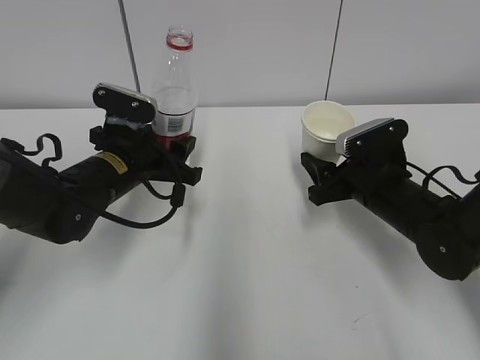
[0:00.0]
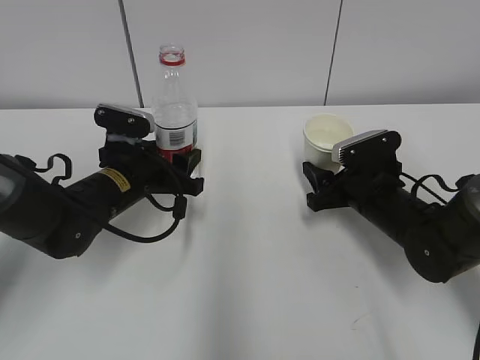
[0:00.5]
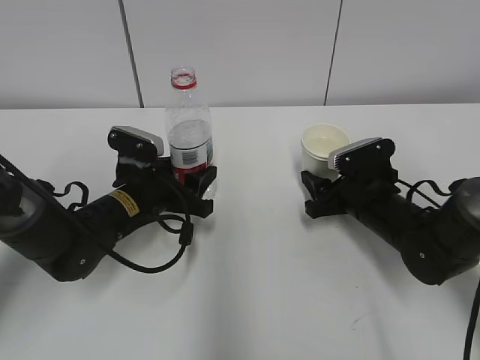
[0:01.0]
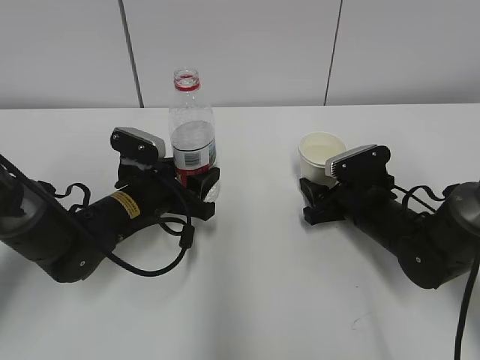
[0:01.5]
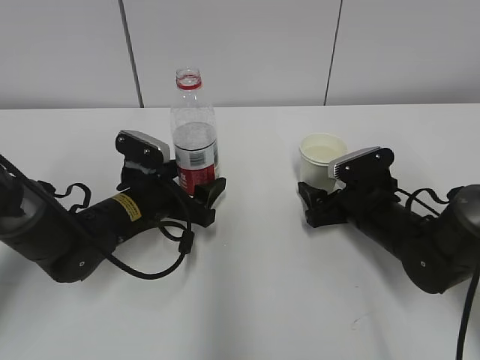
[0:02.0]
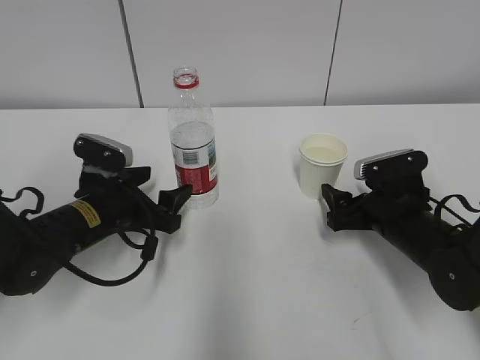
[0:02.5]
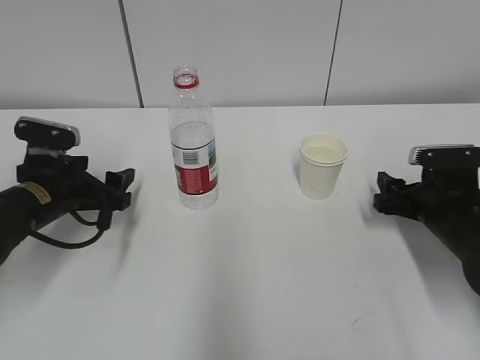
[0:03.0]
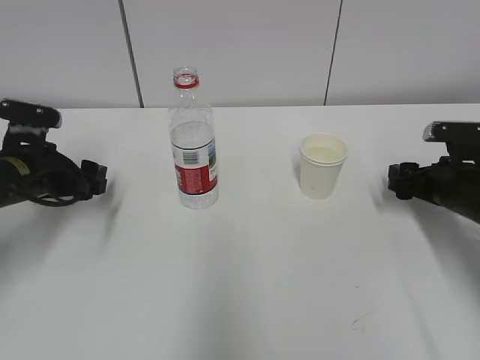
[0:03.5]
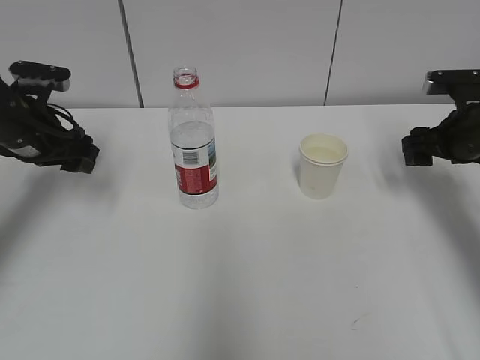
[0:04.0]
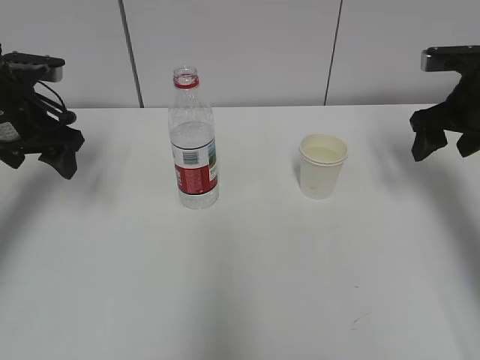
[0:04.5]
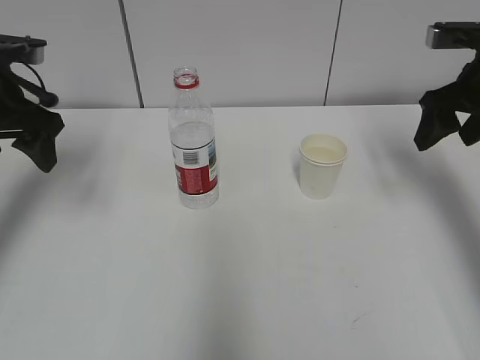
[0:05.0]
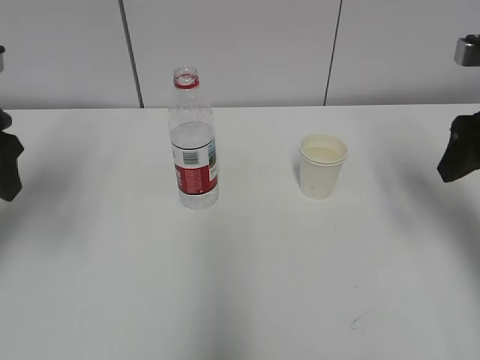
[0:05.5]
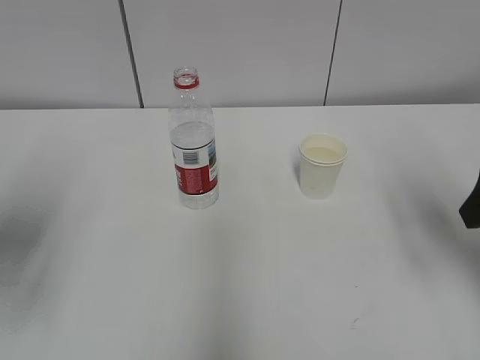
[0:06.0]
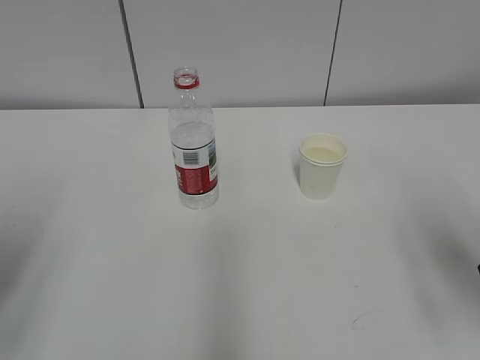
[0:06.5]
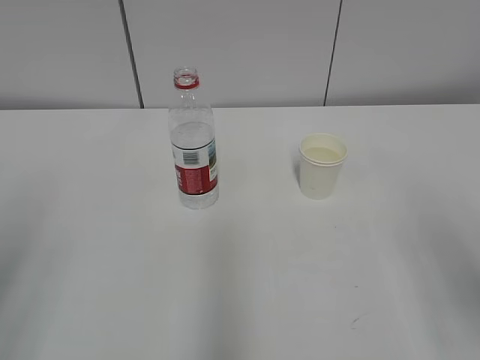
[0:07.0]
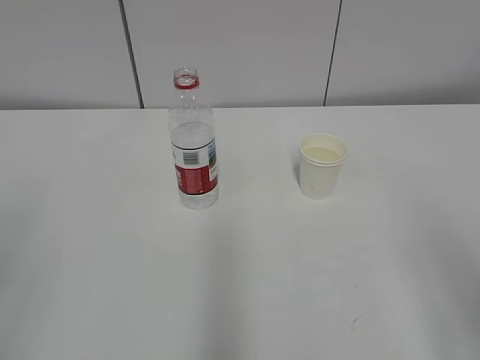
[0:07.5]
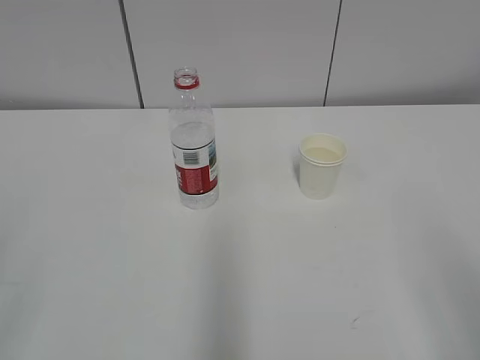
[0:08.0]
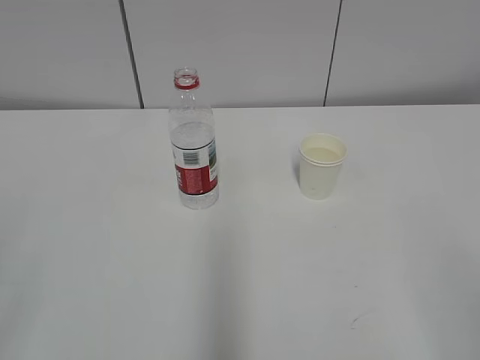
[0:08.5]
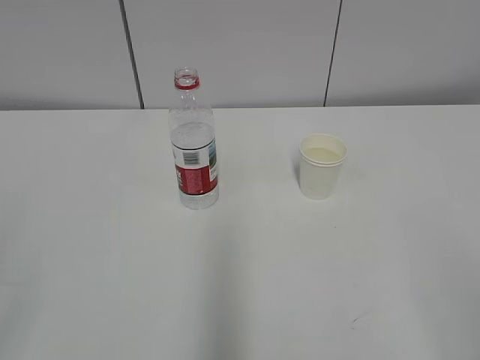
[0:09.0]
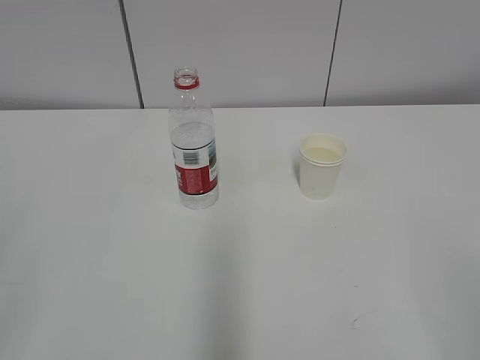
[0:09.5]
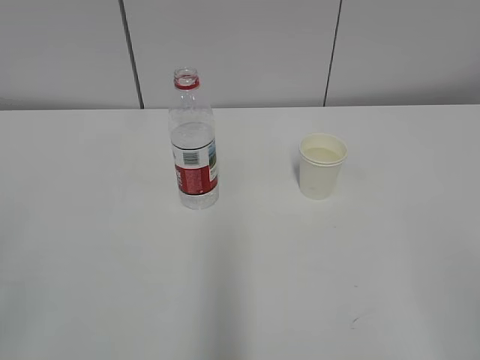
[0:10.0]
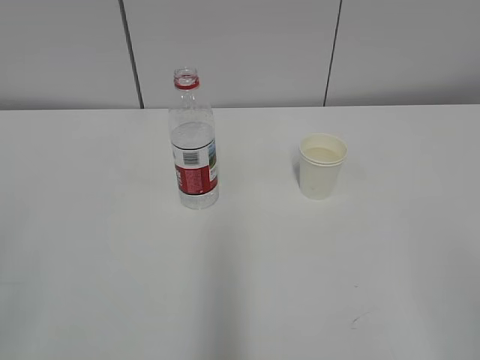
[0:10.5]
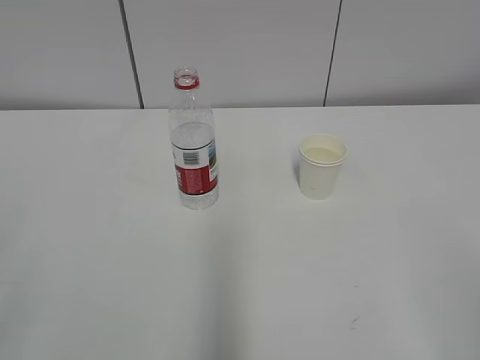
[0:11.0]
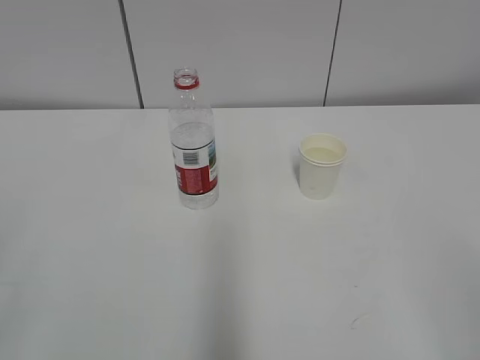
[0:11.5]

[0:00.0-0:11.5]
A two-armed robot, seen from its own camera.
0:00.0 to 0:02.0: The left gripper travels downward by roughly 5 cm, and opens, while the right gripper opens up.
0:02.0 to 0:04.0: The right gripper shifts about 15 cm upward and to the right, and closes up, while the left gripper moves to the left and upward, roughly 20 cm.
0:04.0 to 0:06.0: The left gripper goes approximately 20 cm backward; the right gripper heads backward and upward, covering about 20 cm.
0:06.0 to 0:07.5: Both grippers move backward, approximately 15 cm.
0:09.5 to 0:11.5: The two grippers keep their place.

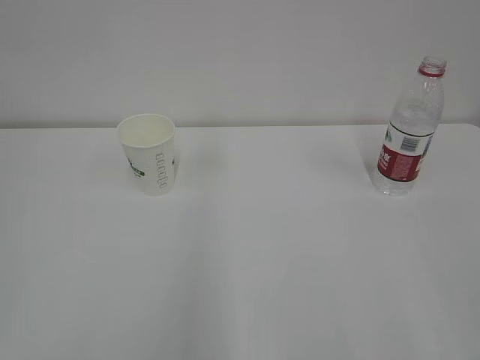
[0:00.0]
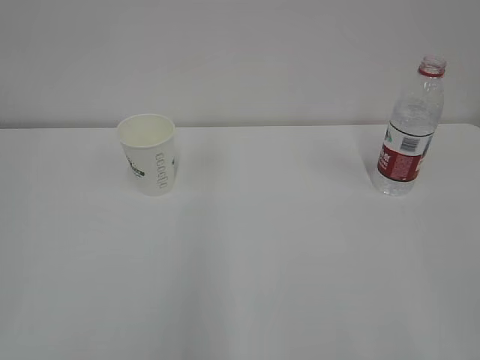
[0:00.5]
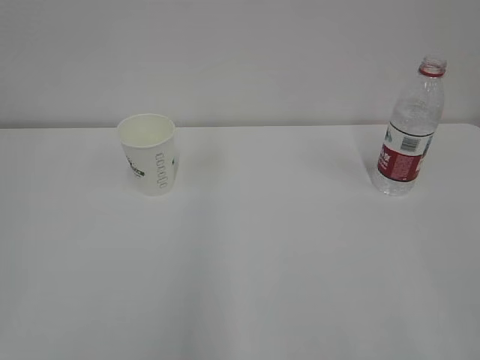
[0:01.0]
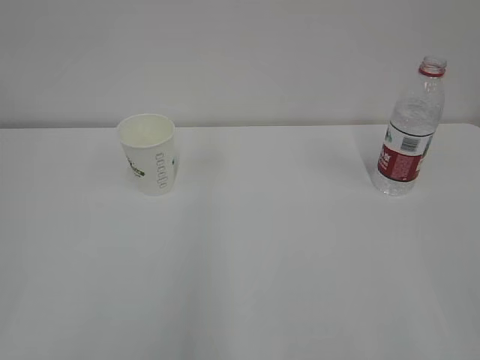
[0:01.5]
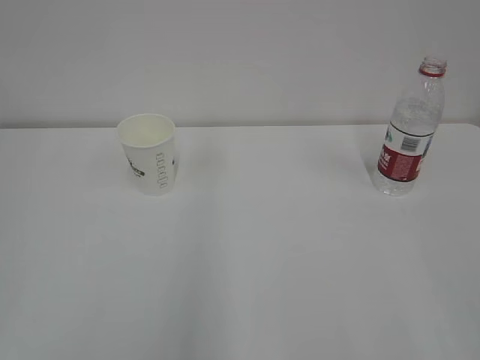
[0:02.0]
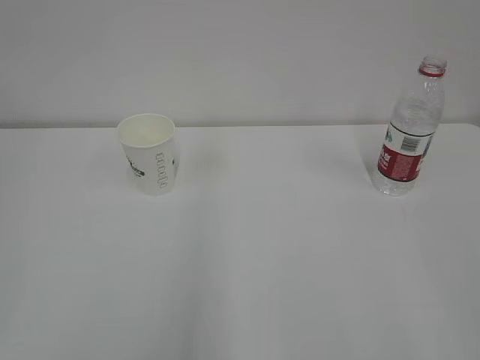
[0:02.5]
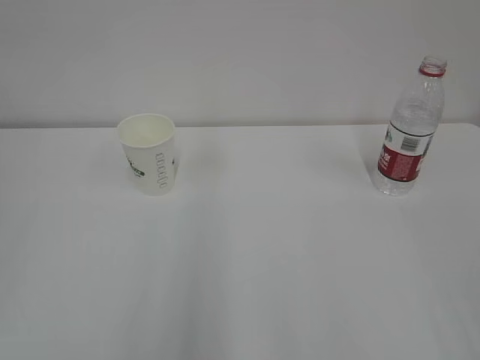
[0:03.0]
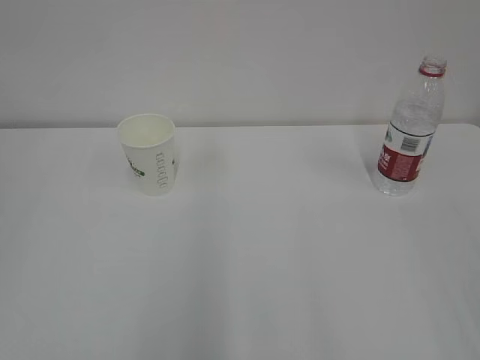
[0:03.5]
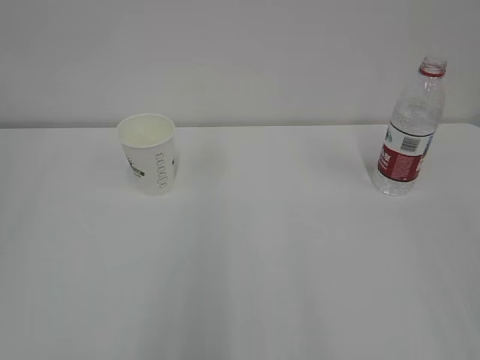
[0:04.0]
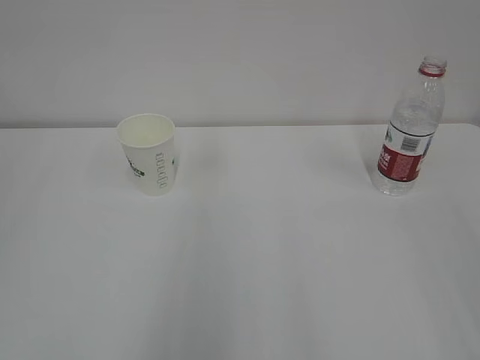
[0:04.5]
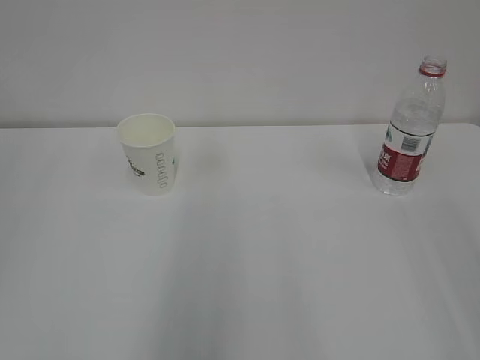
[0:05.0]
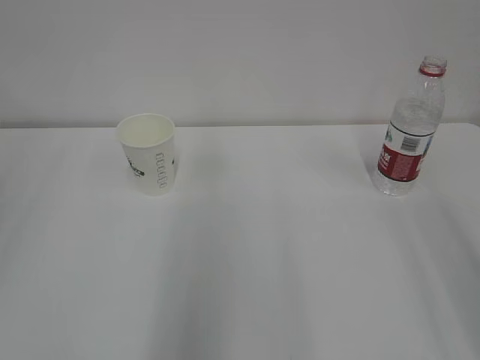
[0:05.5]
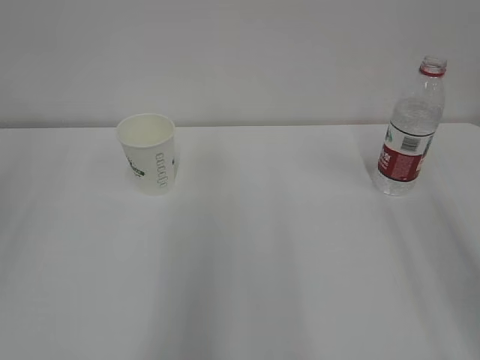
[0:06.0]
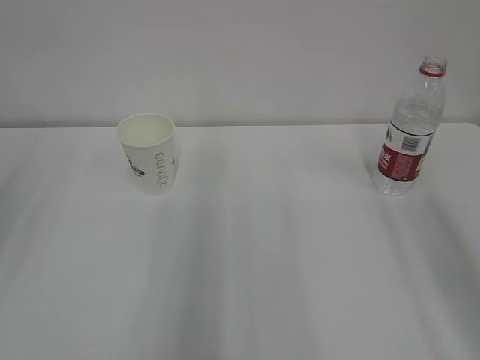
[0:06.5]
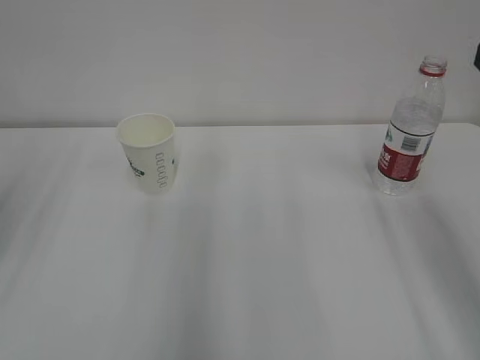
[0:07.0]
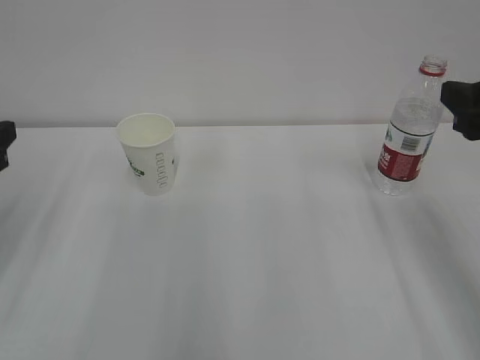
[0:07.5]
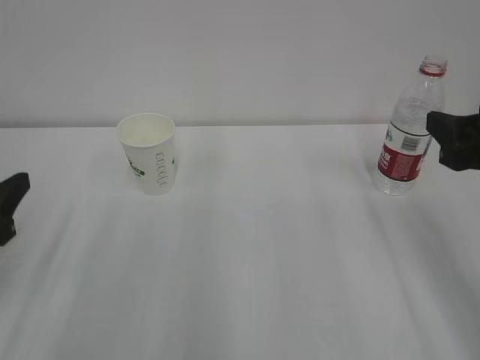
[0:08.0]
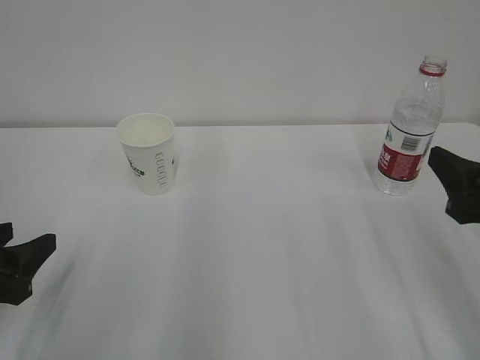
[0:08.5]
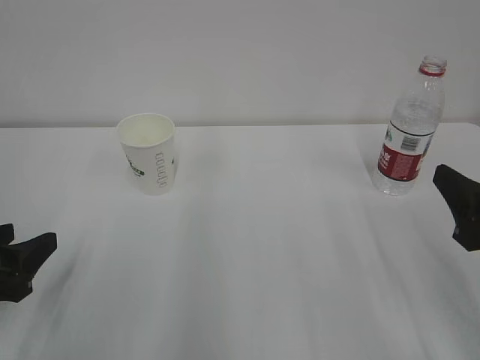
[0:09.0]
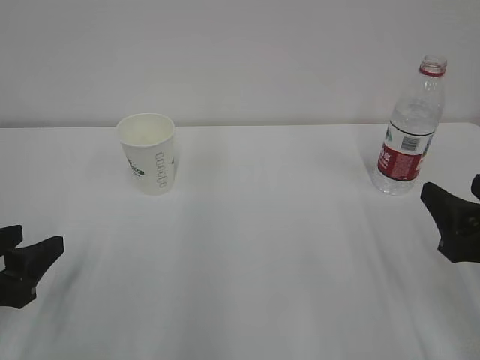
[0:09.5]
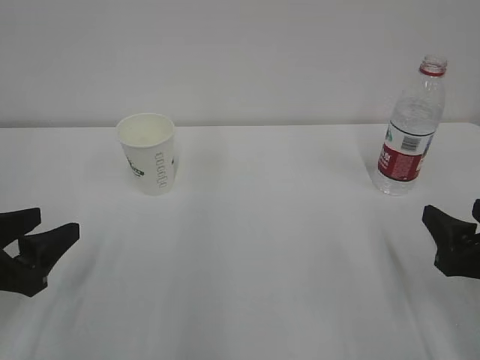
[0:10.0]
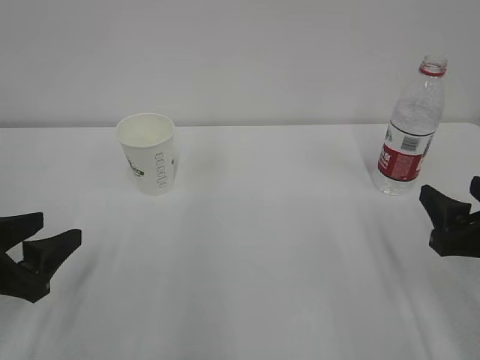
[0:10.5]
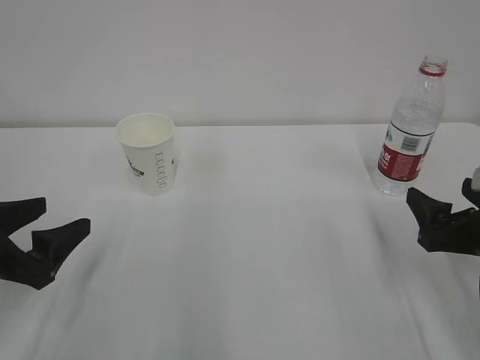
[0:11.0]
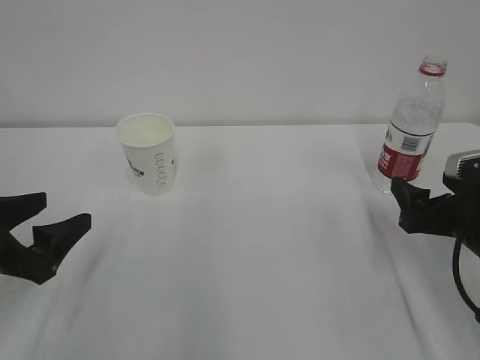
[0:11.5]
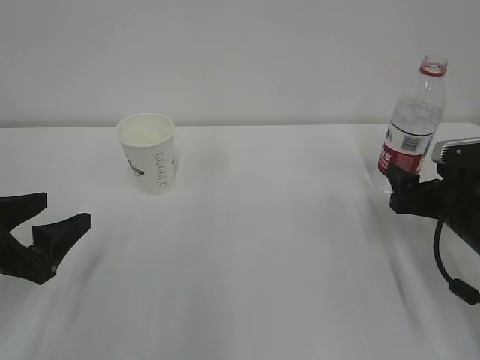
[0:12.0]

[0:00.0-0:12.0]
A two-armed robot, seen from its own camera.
0:06.0 to 0:08.0: The right gripper heads downward and forward, covering about 15 cm, while the left gripper heads downward, covering some 15 cm.
0:08.0 to 0:10.0: The right gripper heads downward, covering about 10 cm.
0:10.0 to 0:12.0: The left gripper opens, while the right gripper is displaced forward by some 10 cm, and opens up.

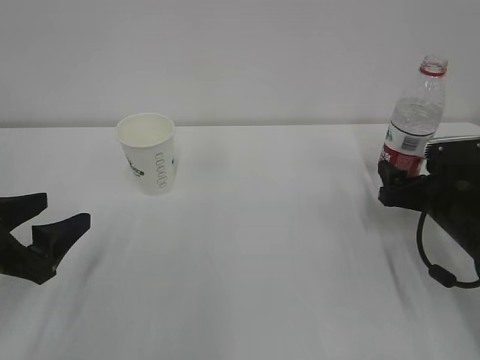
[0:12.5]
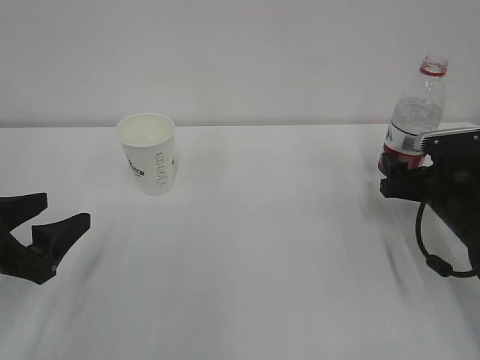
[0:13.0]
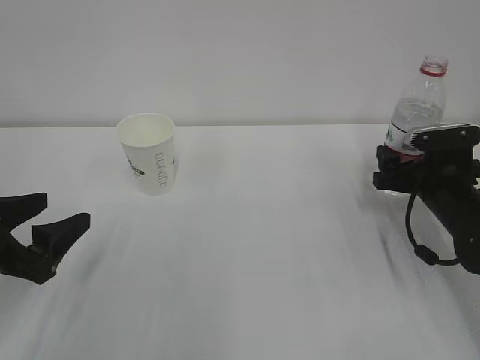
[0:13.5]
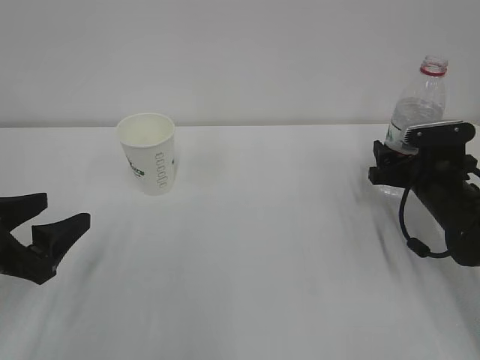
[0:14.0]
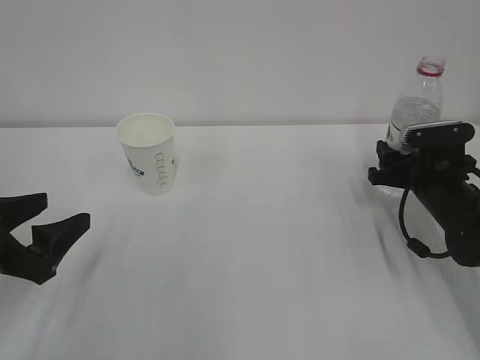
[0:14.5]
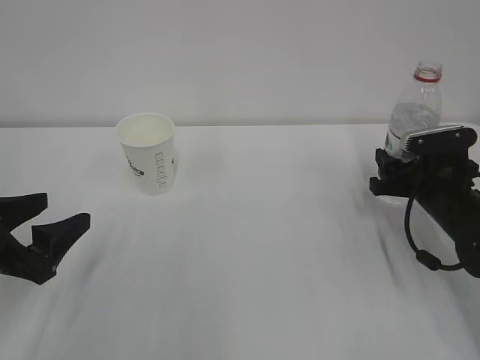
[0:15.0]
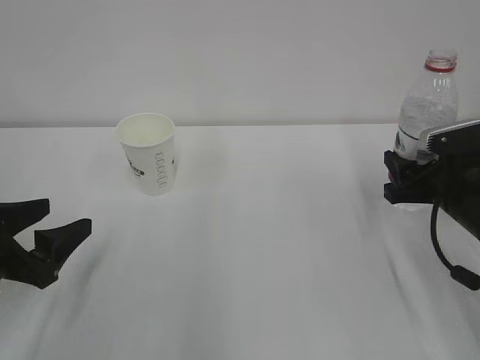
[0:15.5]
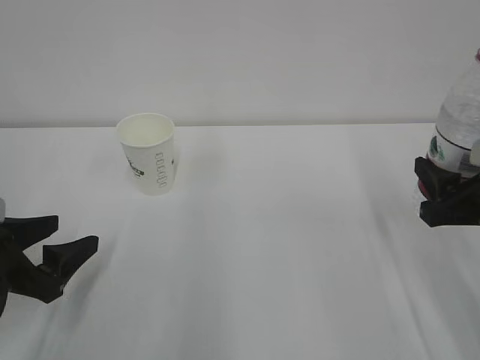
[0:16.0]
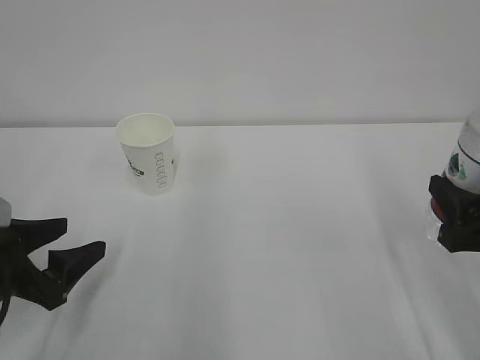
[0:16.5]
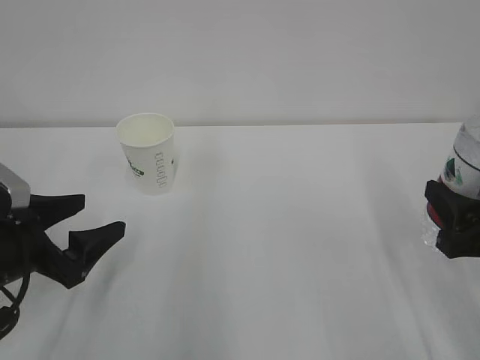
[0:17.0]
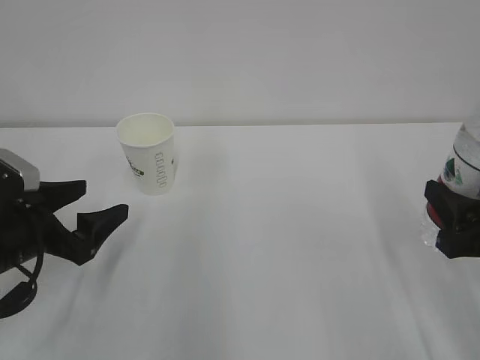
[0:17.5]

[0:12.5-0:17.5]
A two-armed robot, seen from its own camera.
0:12.5 to 0:15.0: The right gripper closes.
0:15.0 to 0:17.5: The left gripper opens up, while the right gripper heads backward and upward, covering some 15 cm.
